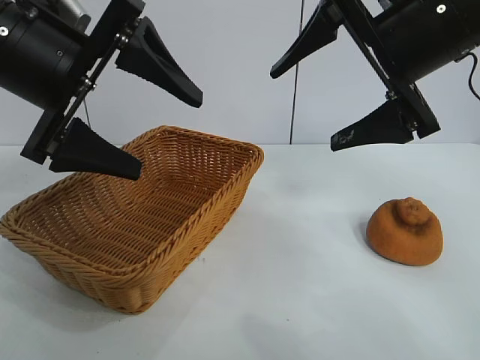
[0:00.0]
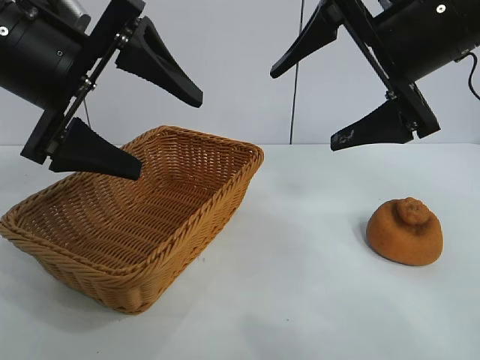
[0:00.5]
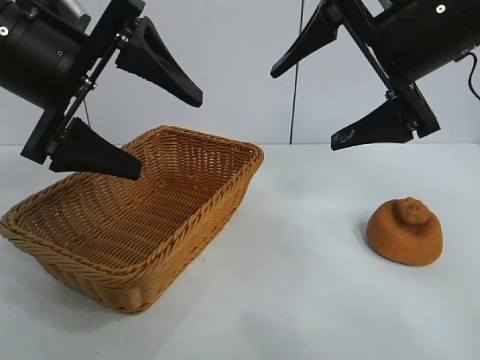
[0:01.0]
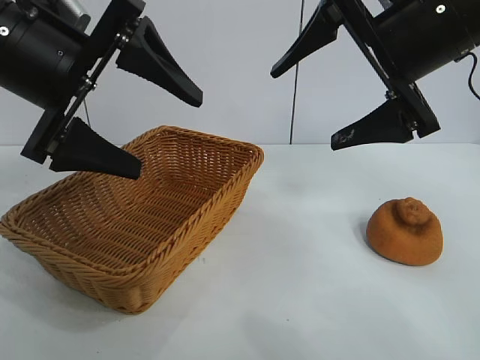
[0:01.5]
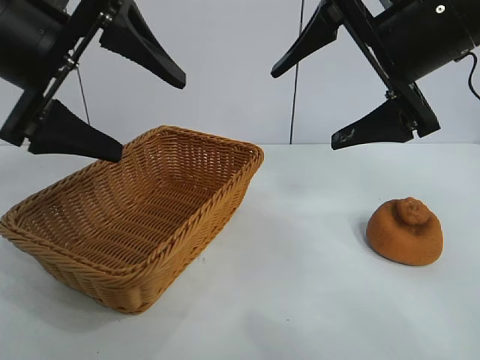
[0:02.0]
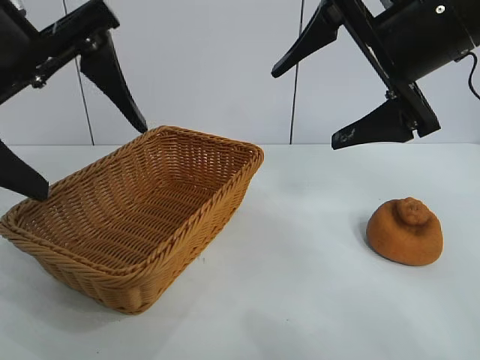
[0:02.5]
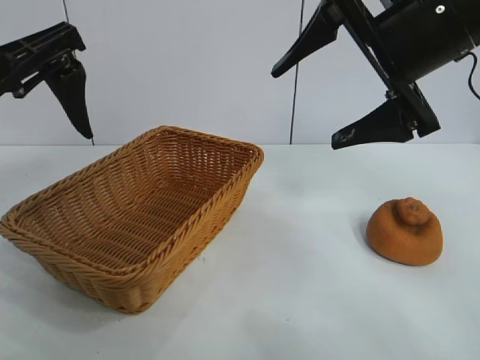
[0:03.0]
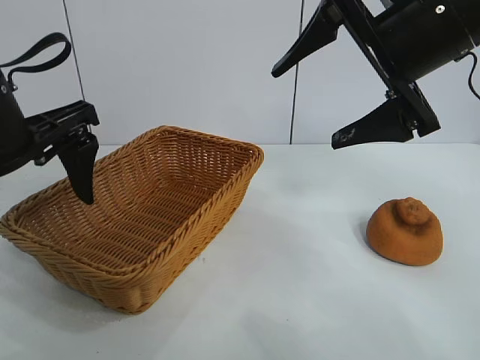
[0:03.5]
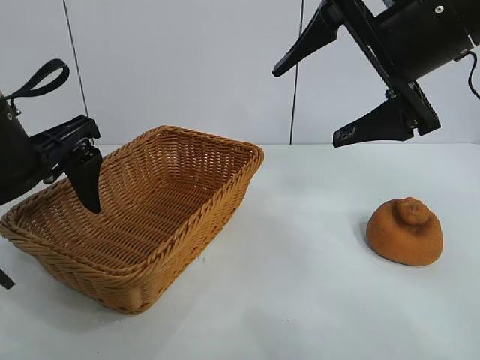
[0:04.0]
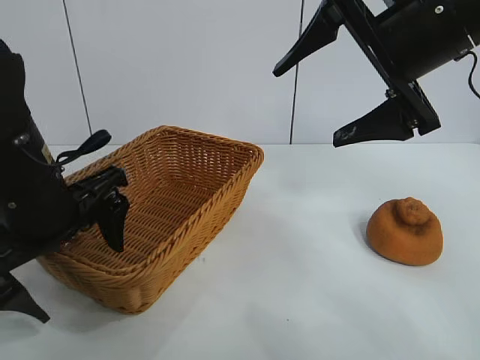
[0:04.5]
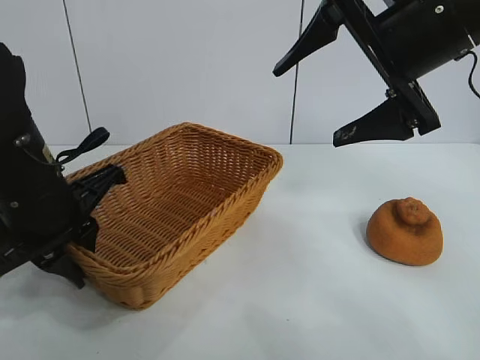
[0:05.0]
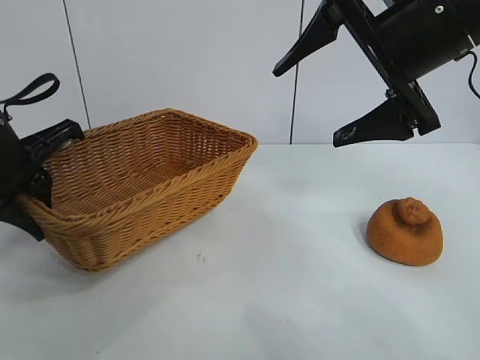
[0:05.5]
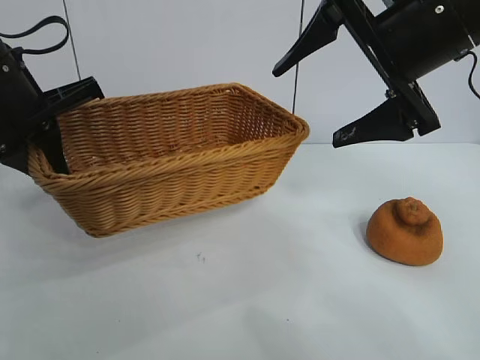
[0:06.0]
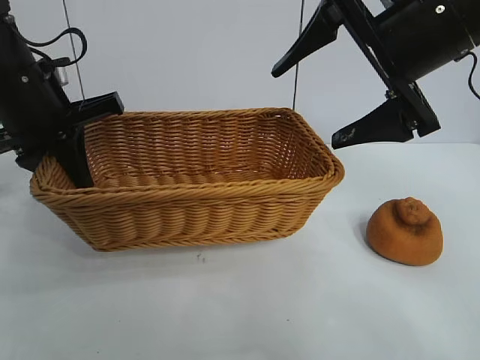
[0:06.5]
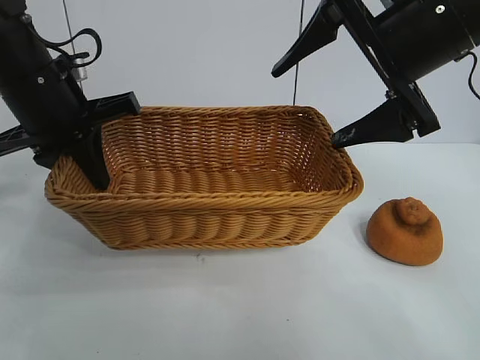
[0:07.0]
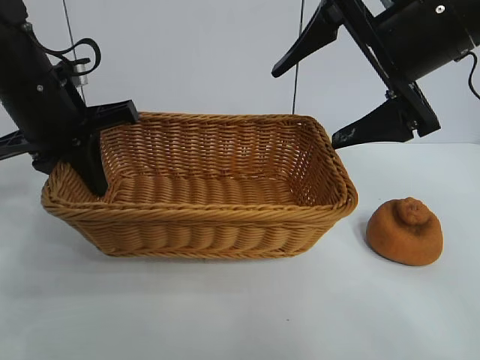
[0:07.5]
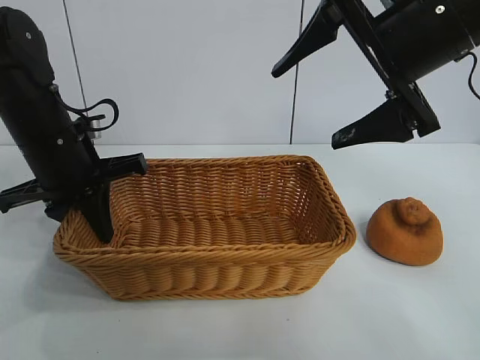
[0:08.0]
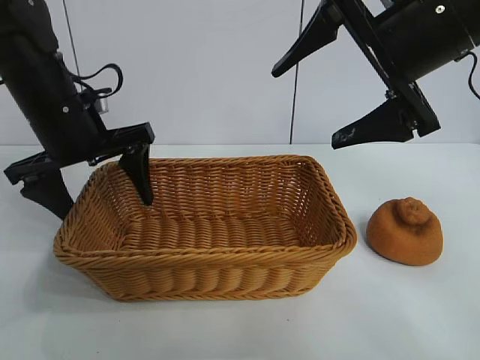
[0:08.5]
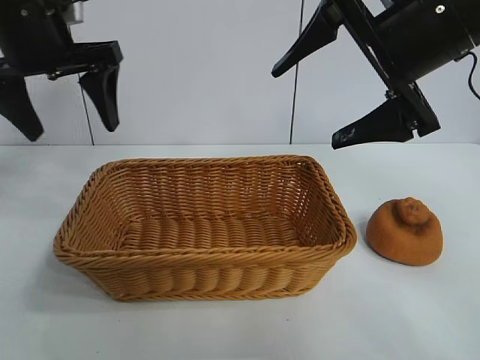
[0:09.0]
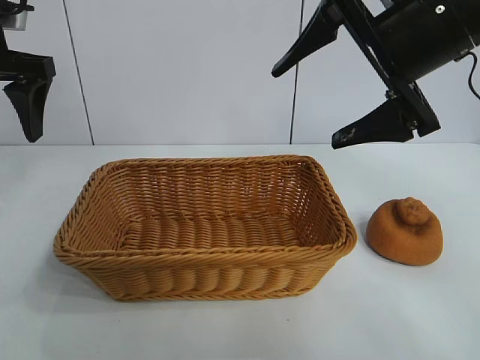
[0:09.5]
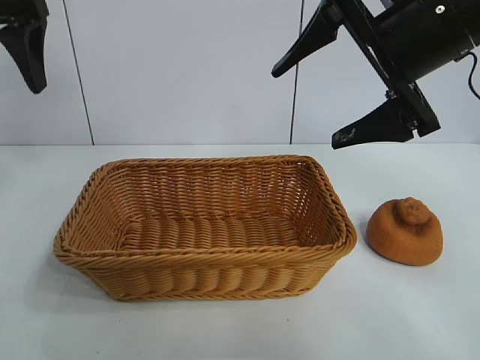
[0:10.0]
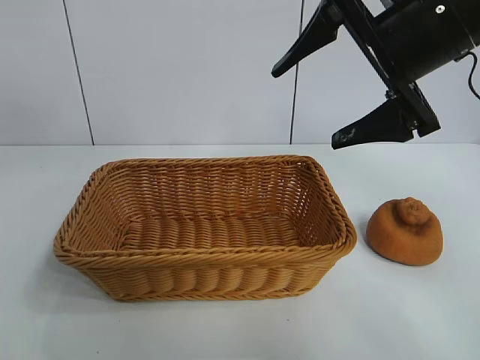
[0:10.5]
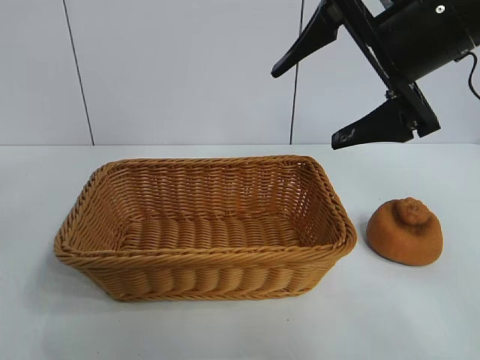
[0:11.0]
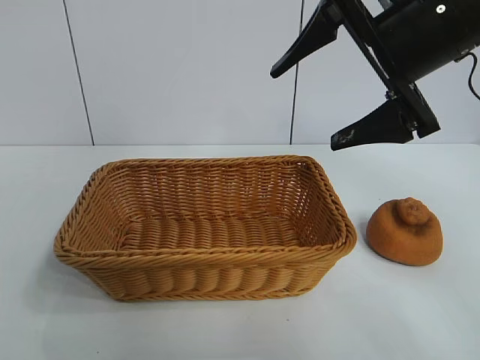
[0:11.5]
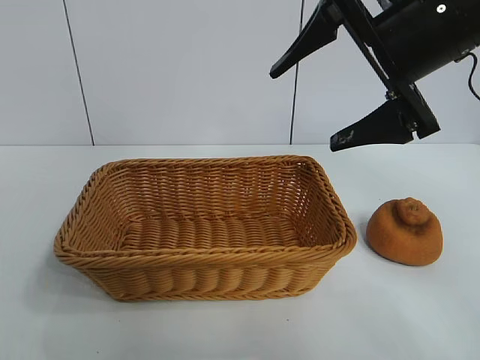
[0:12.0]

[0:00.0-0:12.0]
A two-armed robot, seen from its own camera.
Task of the whole recording: pick up the orange and put it into the basket.
Step, 0:02.0 to 0:04.5: Grasp the basket with left gripper.
Step, 0:05.5 to 0:08.0: Place the basket in the center of view with left gripper.

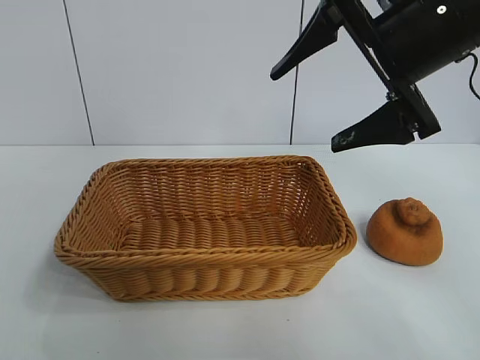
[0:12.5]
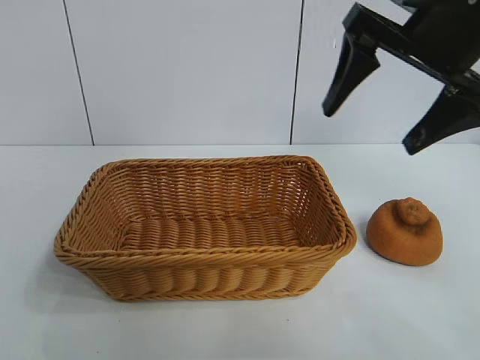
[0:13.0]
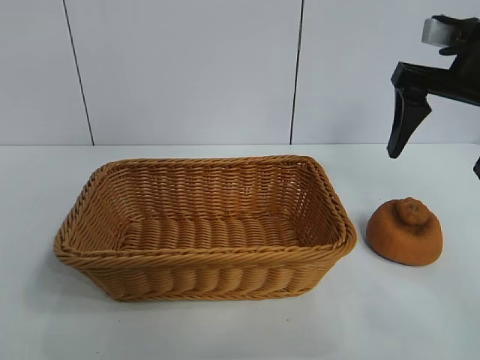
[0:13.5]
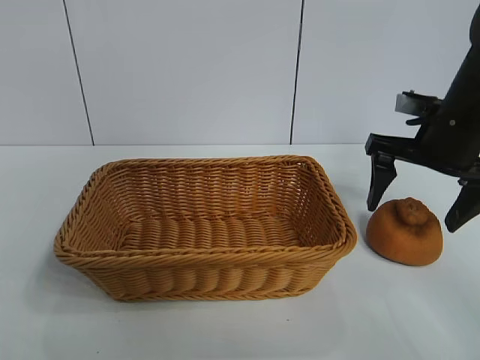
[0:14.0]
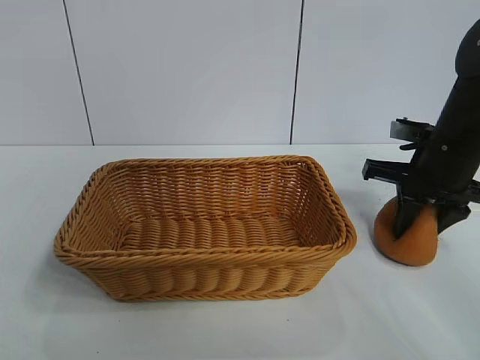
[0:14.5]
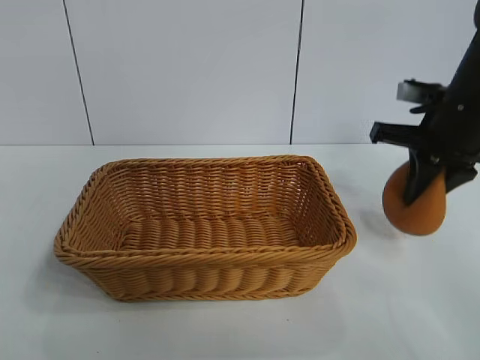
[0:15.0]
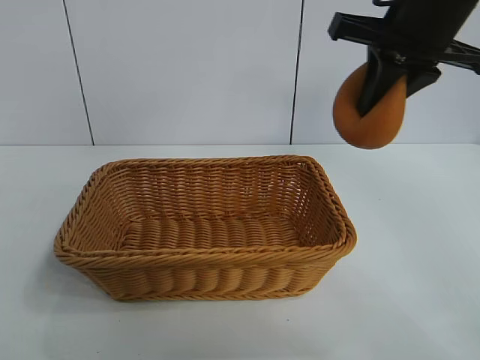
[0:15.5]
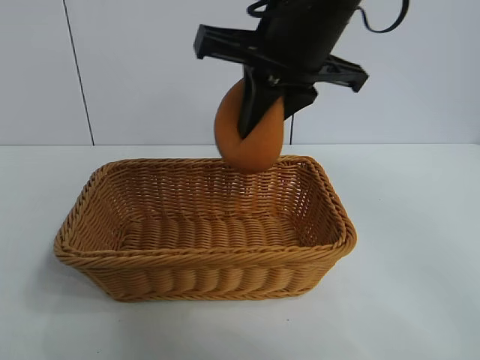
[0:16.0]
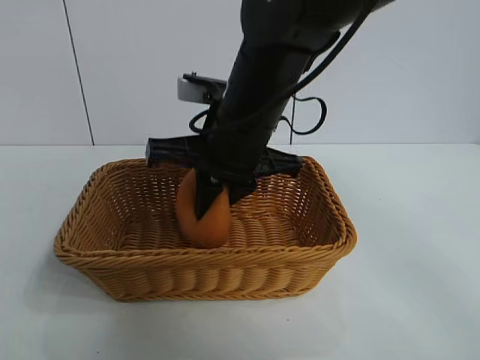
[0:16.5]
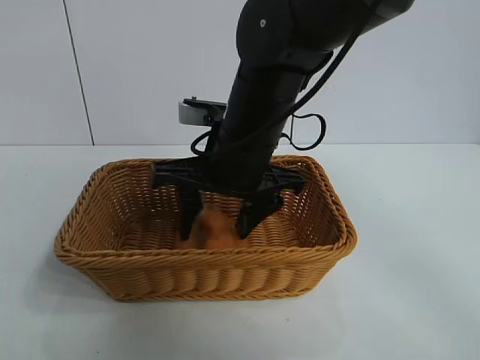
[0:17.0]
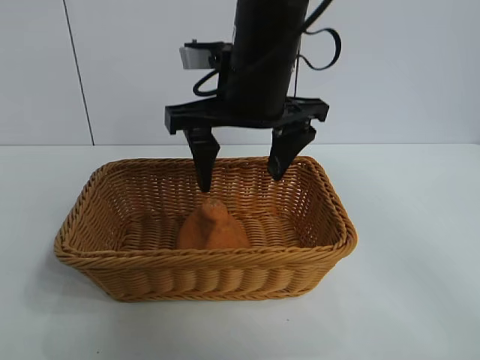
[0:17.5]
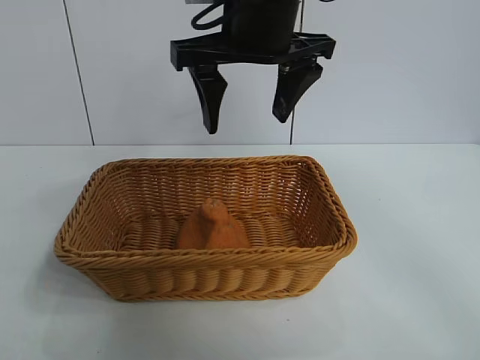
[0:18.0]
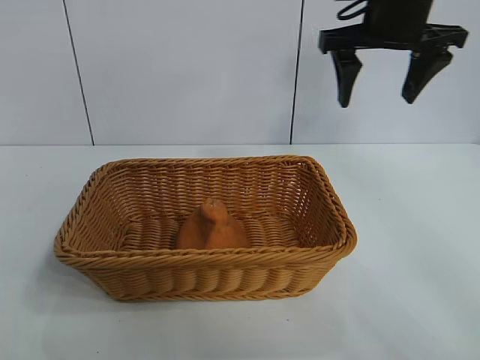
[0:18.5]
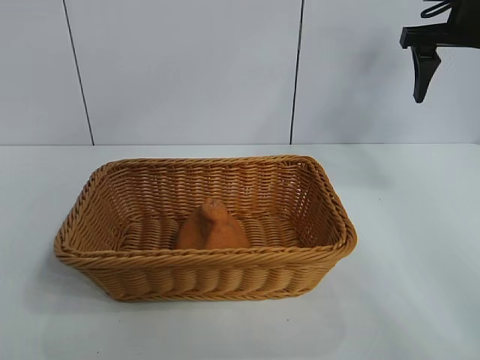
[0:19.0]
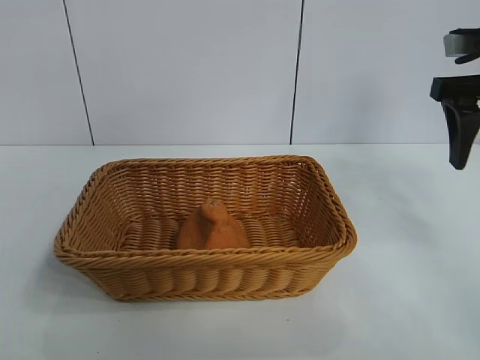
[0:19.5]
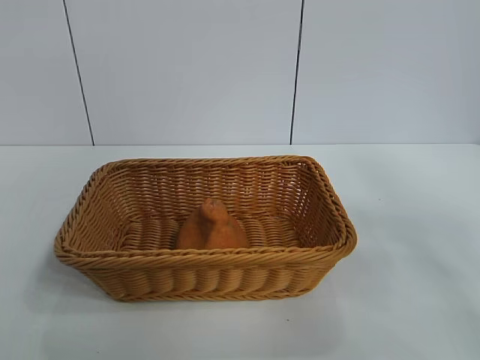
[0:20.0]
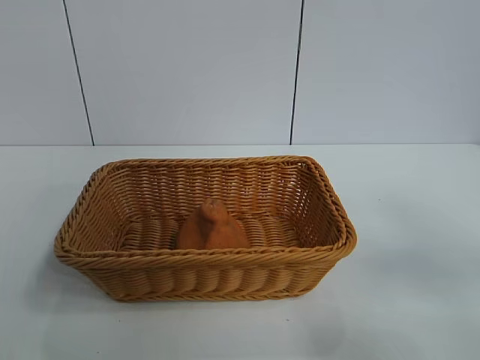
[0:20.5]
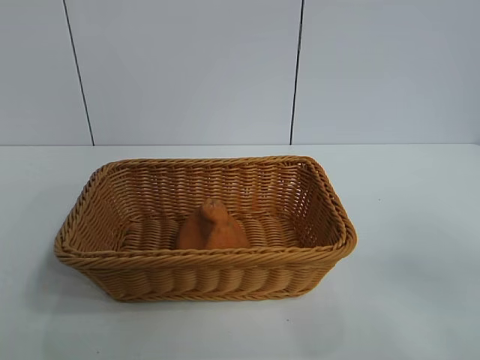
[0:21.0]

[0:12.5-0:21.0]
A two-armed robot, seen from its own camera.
Task of the whole recording: pick up the orange and put it into the basket.
Step, 0:12.5 to 0:14.5: Grasp the orange with right gripper.
Step, 0:15.0 to 0:17.0: Place the orange in the basket with right gripper.
